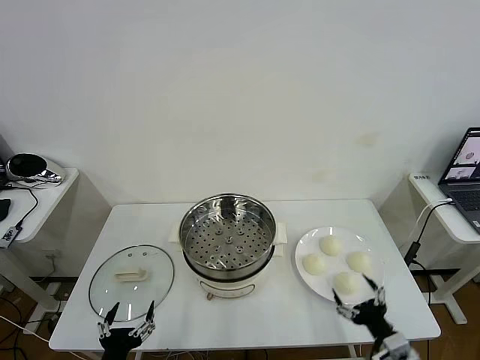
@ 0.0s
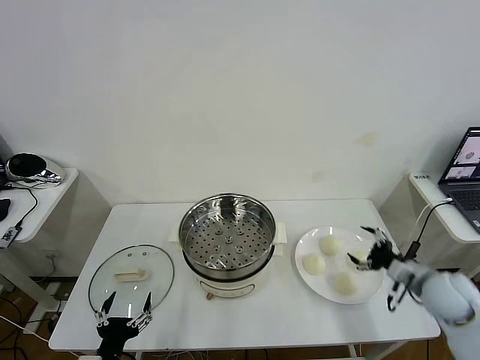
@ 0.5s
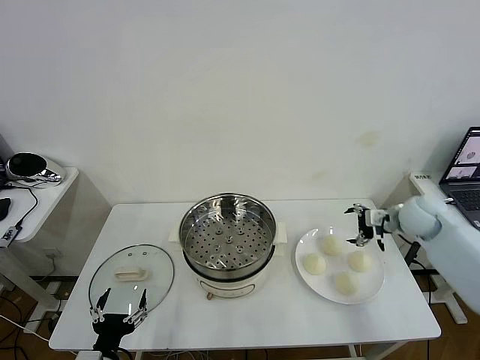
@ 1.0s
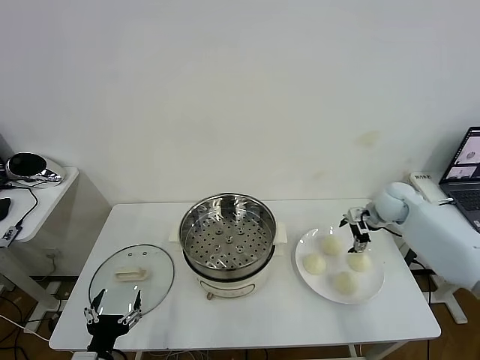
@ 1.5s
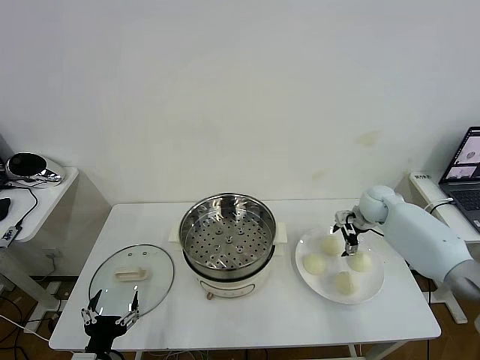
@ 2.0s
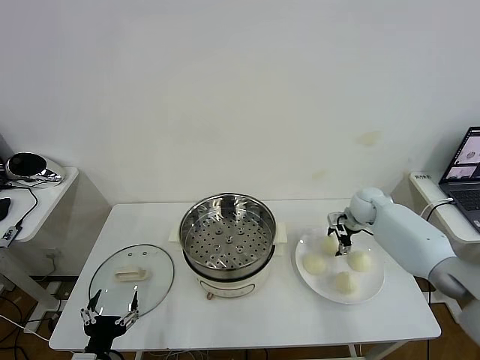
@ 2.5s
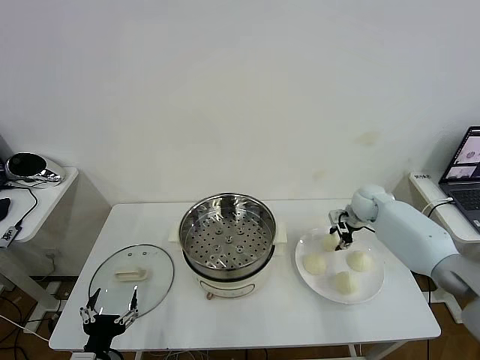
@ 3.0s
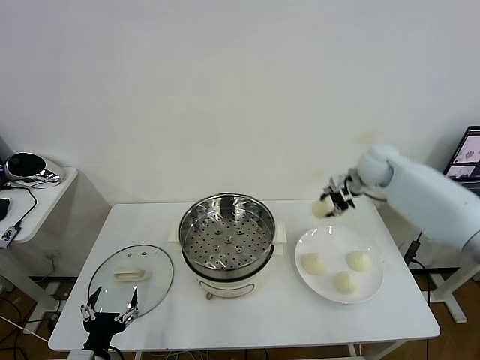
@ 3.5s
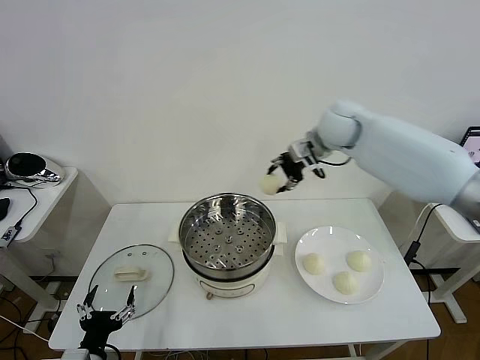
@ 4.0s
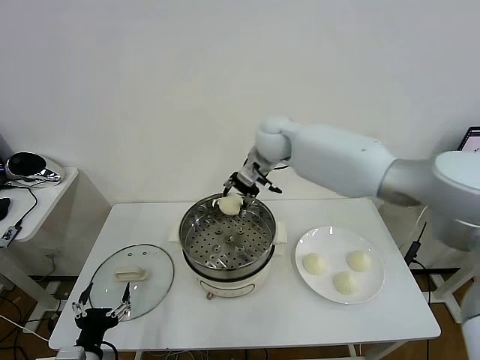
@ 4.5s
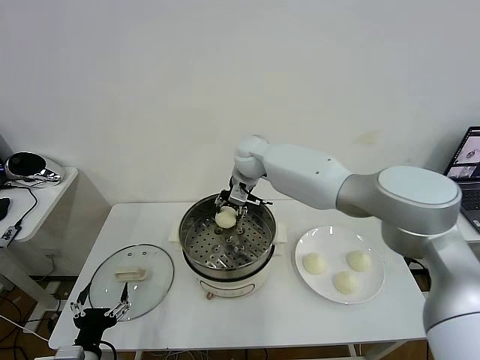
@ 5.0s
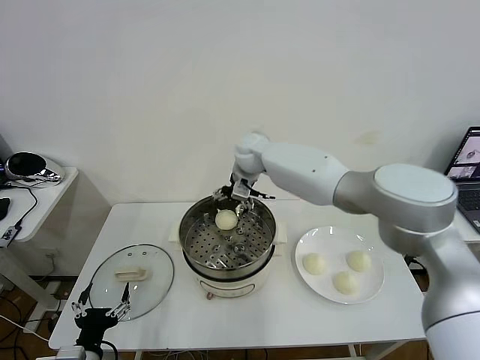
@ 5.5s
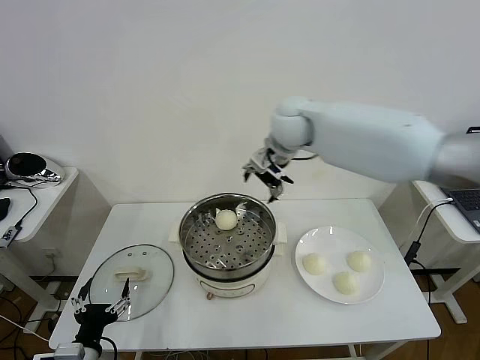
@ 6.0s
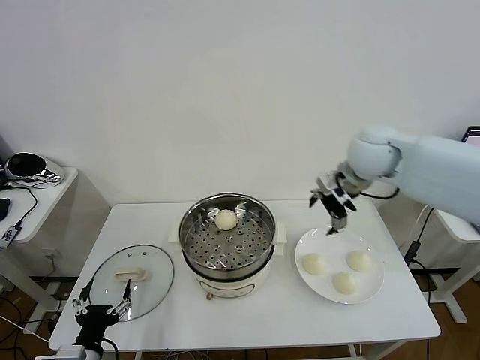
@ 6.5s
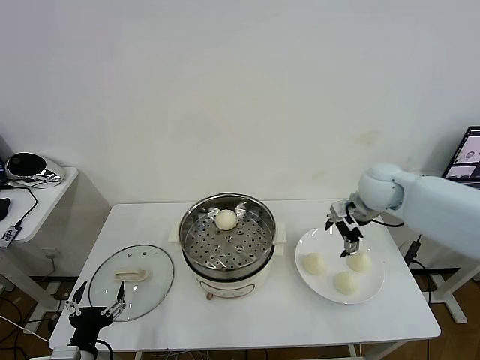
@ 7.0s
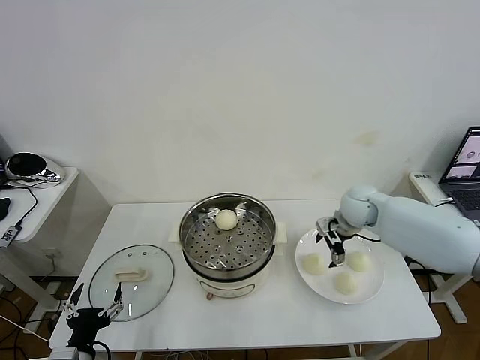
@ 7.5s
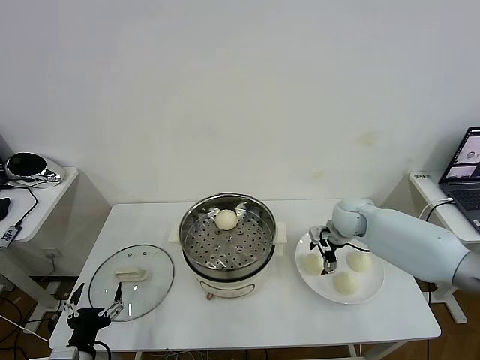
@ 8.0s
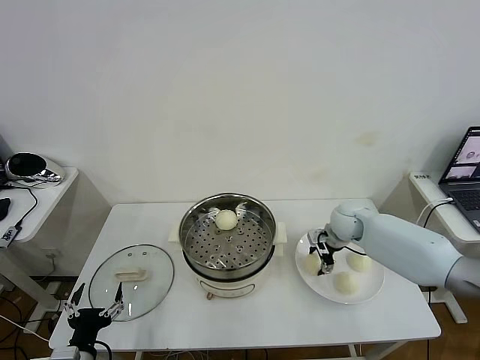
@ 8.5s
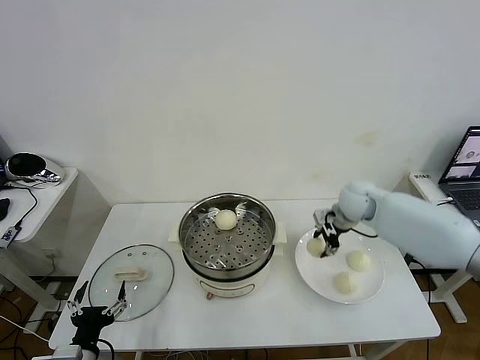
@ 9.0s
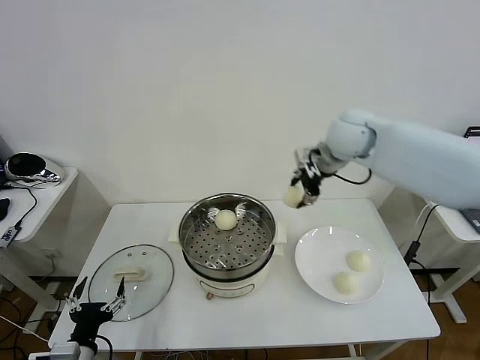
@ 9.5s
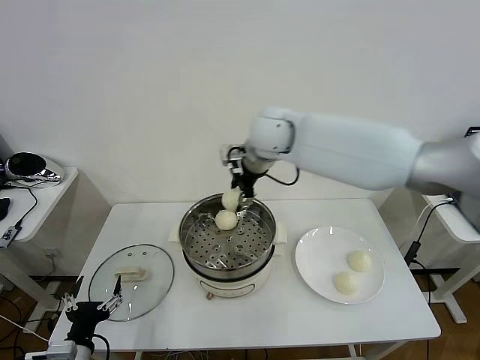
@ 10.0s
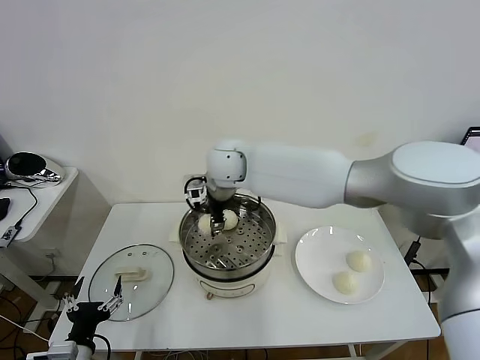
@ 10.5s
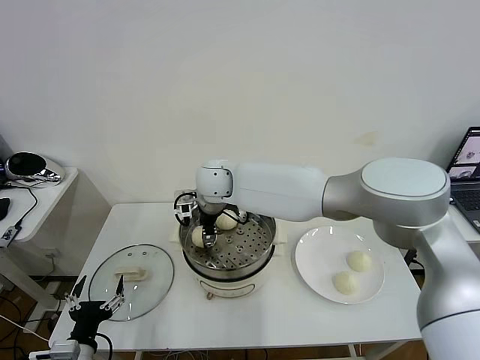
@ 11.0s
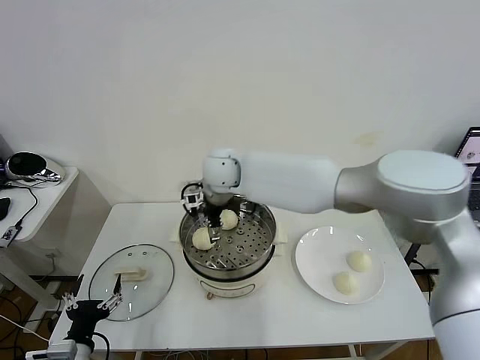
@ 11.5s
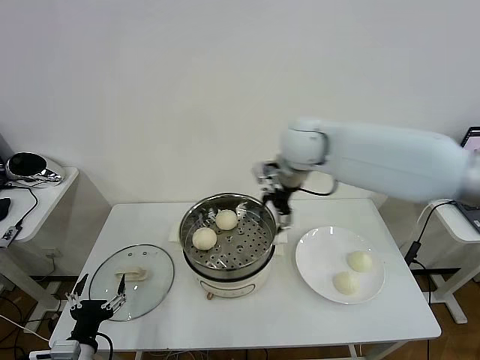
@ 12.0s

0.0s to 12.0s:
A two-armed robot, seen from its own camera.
Task of the whole recording: take steamed baozi put them in steamer then cover it.
Step, 0.0s to 2.5s: Grasp the baozi in the plate with right gripper.
Step, 3.0s to 5.0s: Place the baozi on the steamer with right gripper.
Step, 6.0s to 8.5s: Grasp the baozi in the plate with right gripper.
Step, 9.0s to 11.0s: Place the baozi on the steamer with right gripper.
2.0s to 4.0s: The right gripper is displaced upward and to the left by roughly 30 cm, and closes up.
4.0s to 6.0s: The right gripper moves roughly 15 cm to the left and comes back, and opens up.
6.0s to 8.0s: The right gripper is displaced downward and to the right by about 30 cm.
8.0s to 10.0s: The right gripper shifts approximately 35 cm to the left and upward, and closes up.
10.0s to 12.0s: The right gripper travels to the right by approximately 15 cm, and opens.

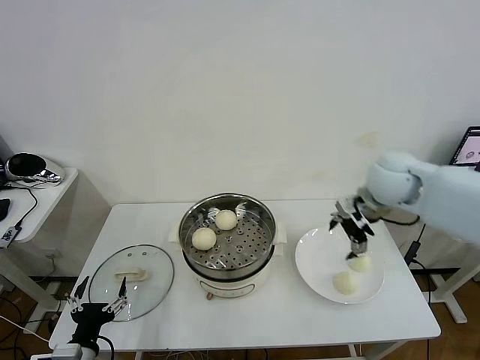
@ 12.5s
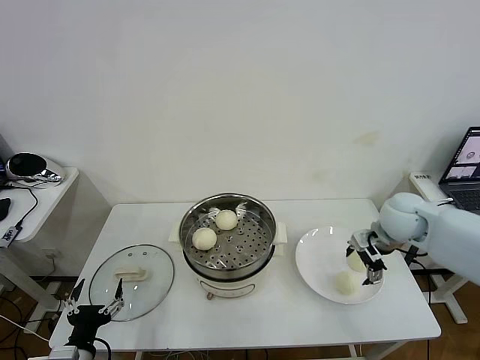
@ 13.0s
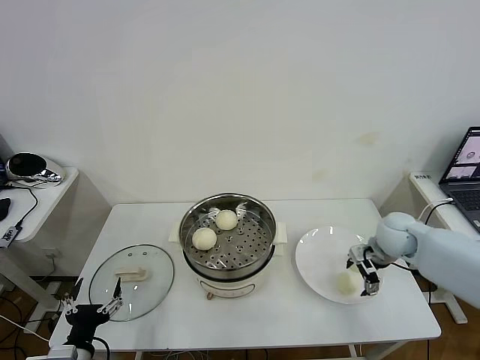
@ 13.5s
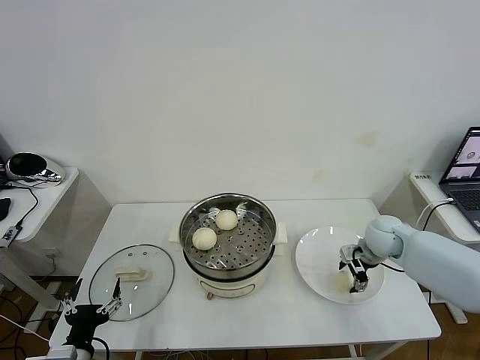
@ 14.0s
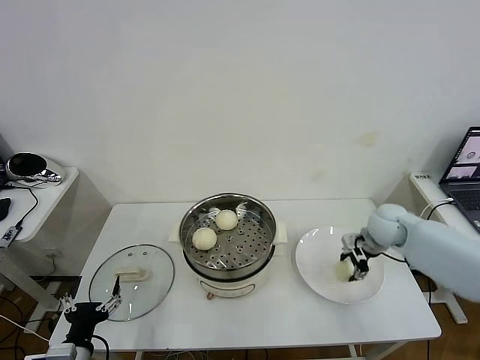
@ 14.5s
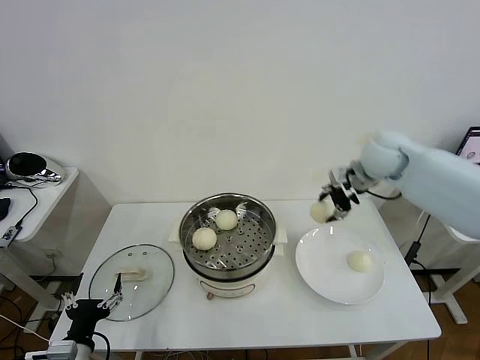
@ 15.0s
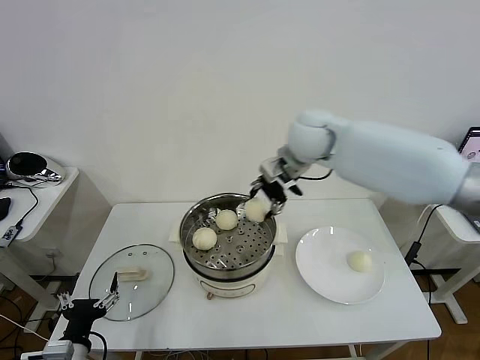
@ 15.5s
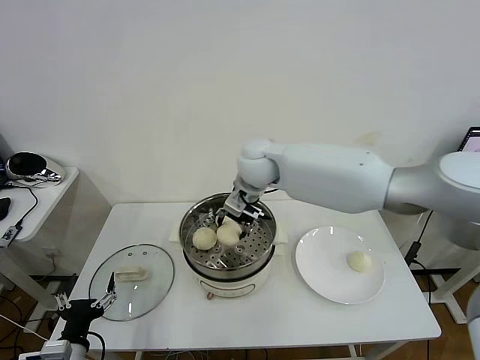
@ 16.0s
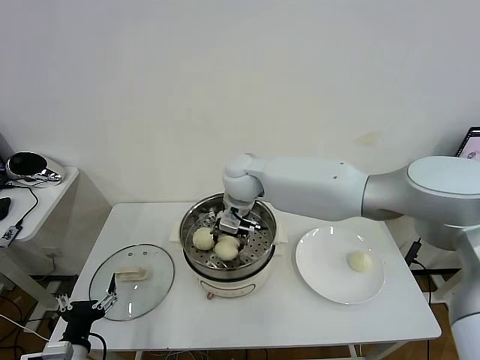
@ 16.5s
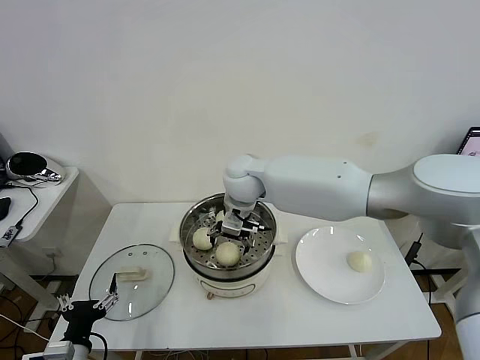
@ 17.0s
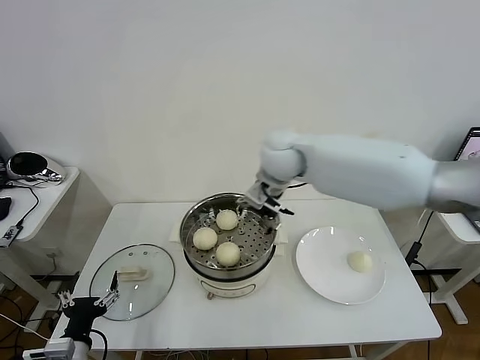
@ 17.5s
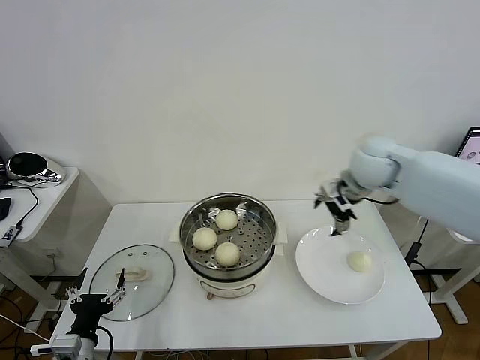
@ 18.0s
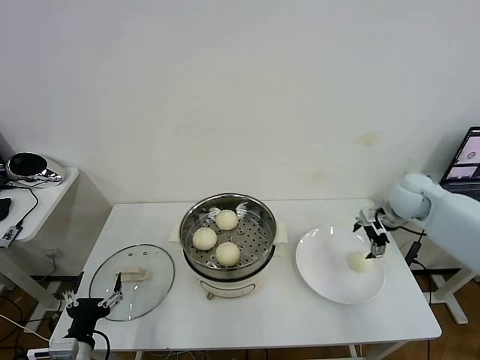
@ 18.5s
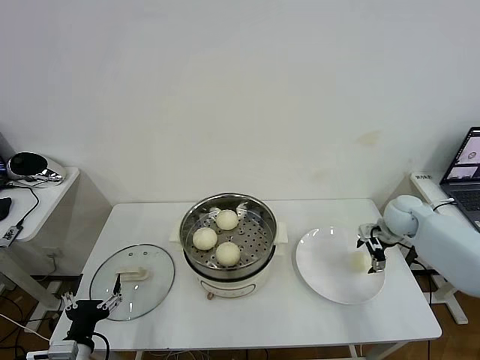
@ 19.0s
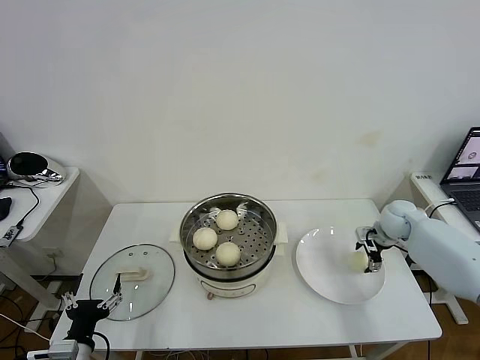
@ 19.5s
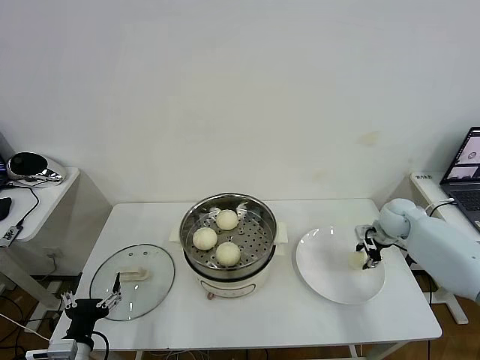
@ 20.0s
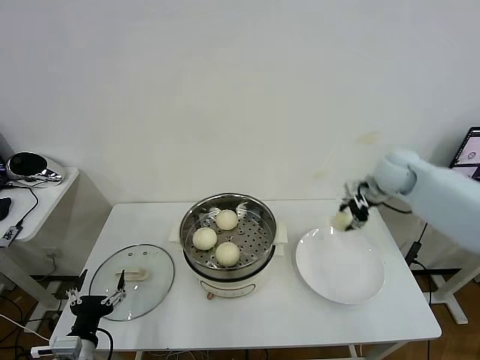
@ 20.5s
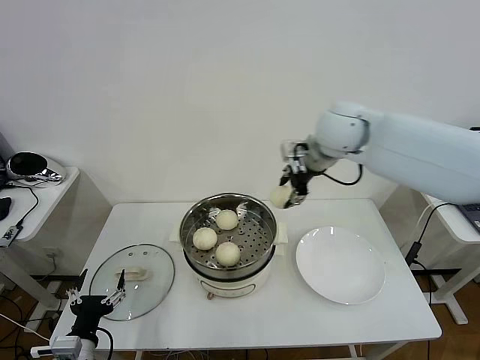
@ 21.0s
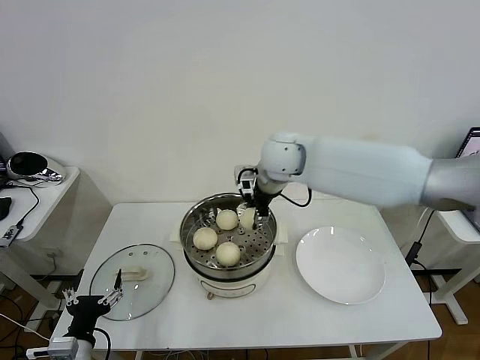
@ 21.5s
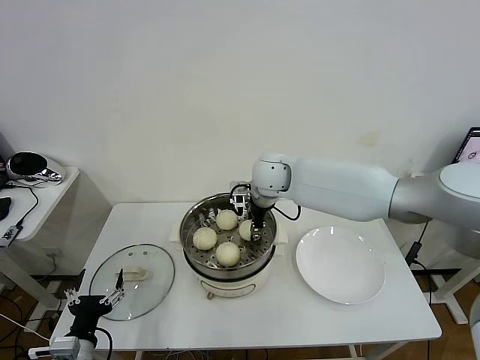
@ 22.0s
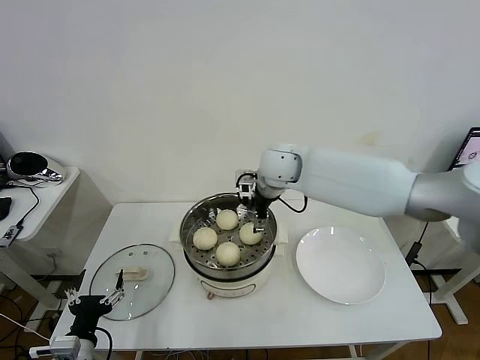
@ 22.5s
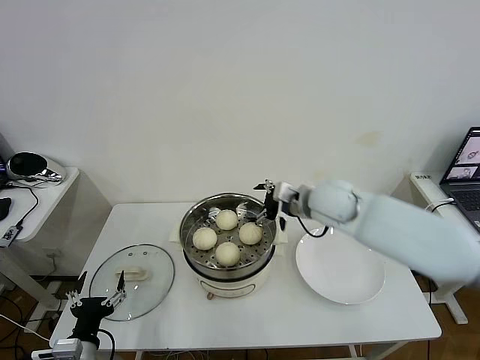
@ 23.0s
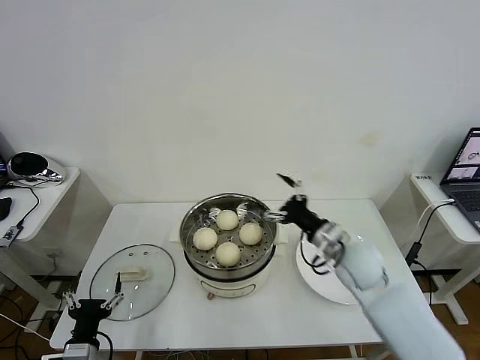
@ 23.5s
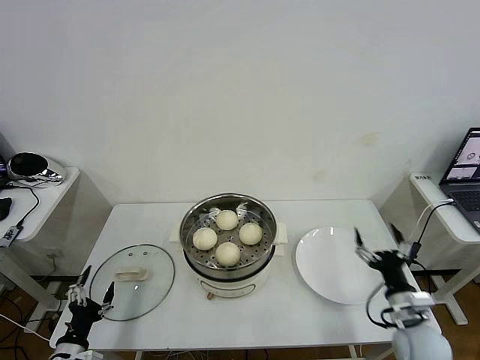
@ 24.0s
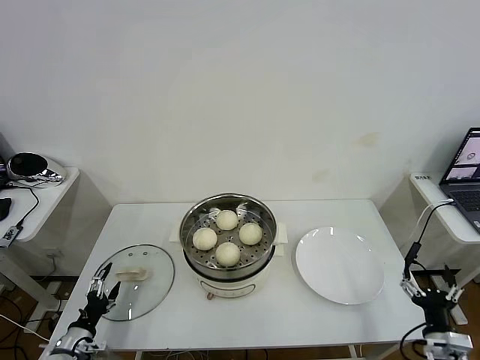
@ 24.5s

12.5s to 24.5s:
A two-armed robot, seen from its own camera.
Task of the whole recording: take steamed baozi put them in steamer then cover it.
Step, 12.5s to 14.0s: Grasp the baozi in the plate with right gripper.
Step, 14.5s to 17.0s: Place the baozi on the steamer with right gripper.
Step, 17.5s to 19.5s: Grasp the baozi in the plate with right gripper.
Step, 20.0s to 22.0s: Place the baozi on the steamer with right gripper.
12.5s to 14.5s: The right gripper is displaced downward by about 10 cm, and closes up.
14.5s to 16.5s: The right gripper is displaced to the left by about 35 cm.
16.5s to 18.5s: The right gripper is displaced to the right by some 40 cm, and opens its fingers.
18.5s to 20.5s: The right gripper is displaced upward and to the left by roughly 10 cm, and closes.
20.5s to 22.5s: The right gripper goes roughly 25 cm to the left, and opens its fingers.
22.5s to 24.5s: The left gripper heads downward, to the left and forward, covering some 15 cm. The right gripper travels backward, to the right and downward by approximately 60 cm.

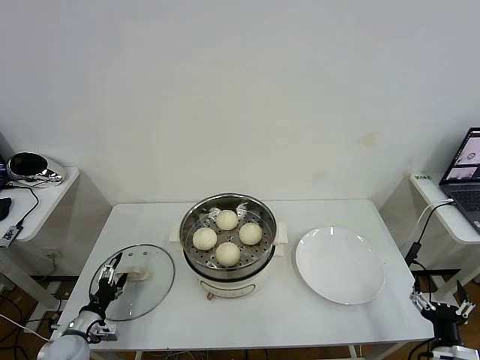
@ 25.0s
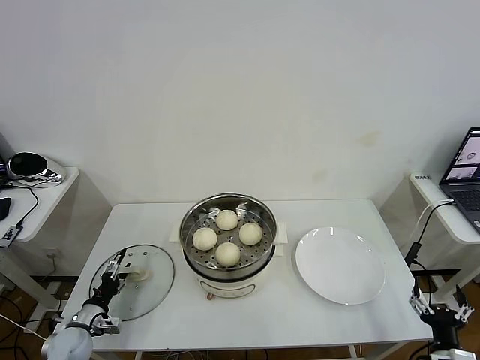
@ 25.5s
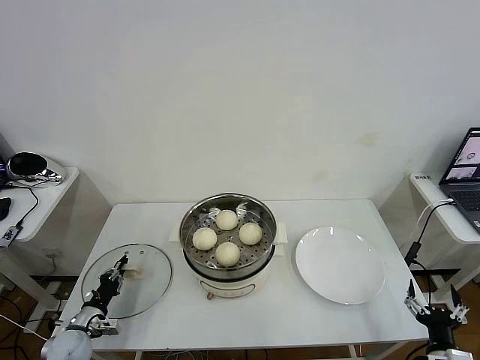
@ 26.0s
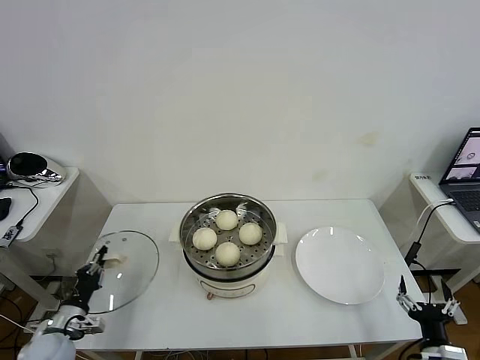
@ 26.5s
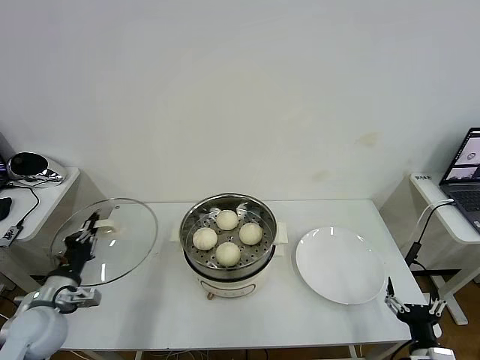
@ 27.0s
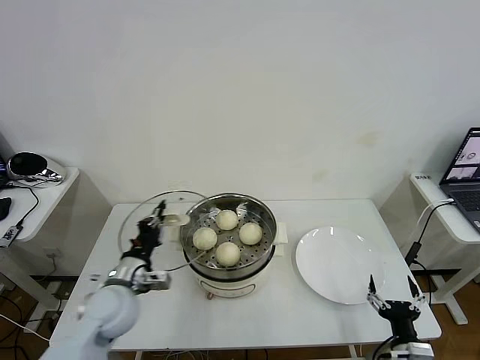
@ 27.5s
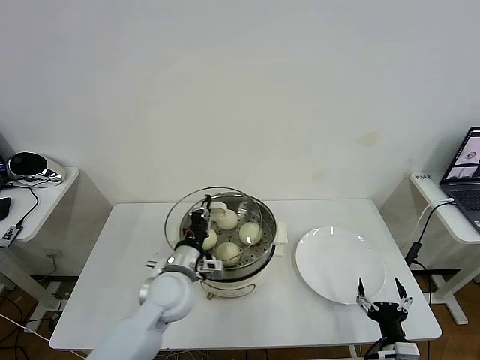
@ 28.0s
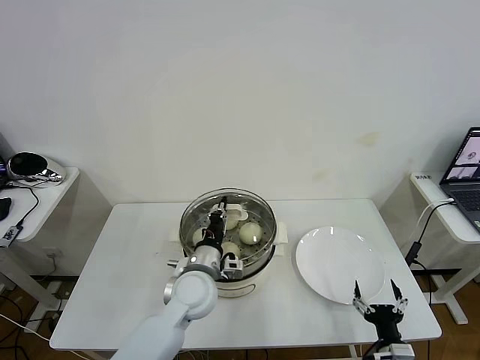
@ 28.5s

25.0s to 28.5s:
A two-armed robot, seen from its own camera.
Task of the whole recording: take steamed baozi put them in steamer then cover it.
25.0s to 27.0s: The left gripper shifts some 15 cm upward, and closes.
27.0s to 28.5s: The left gripper travels to the right by some 30 cm. Meanwhile the right gripper changes place by approximately 5 cm.
